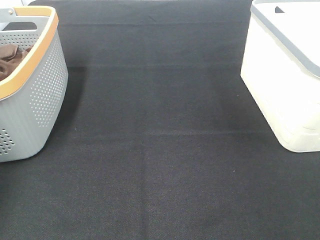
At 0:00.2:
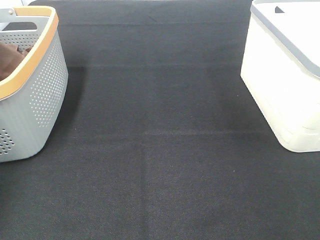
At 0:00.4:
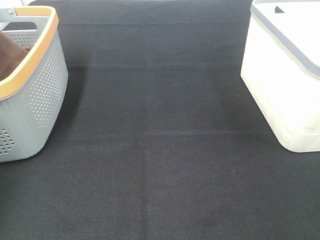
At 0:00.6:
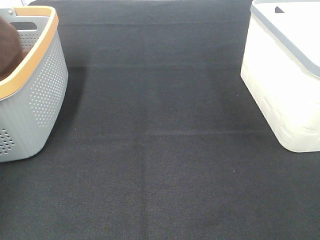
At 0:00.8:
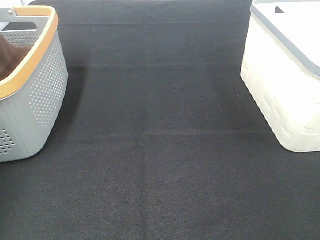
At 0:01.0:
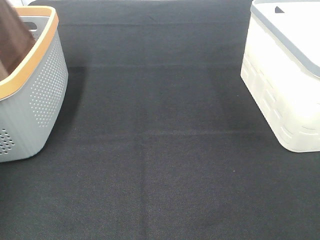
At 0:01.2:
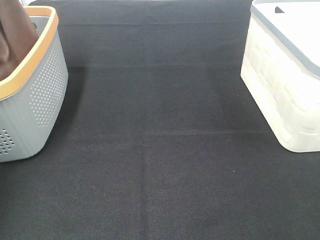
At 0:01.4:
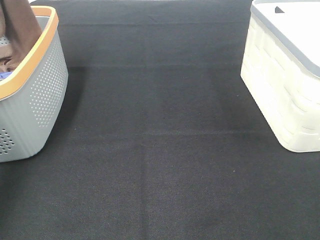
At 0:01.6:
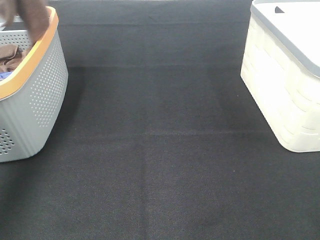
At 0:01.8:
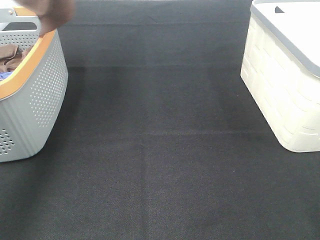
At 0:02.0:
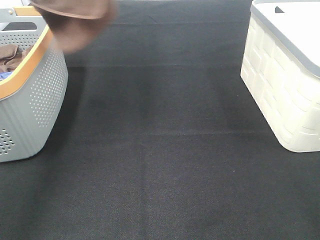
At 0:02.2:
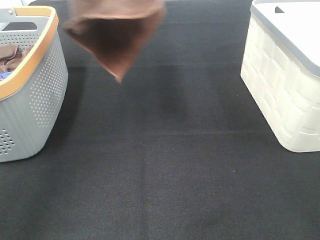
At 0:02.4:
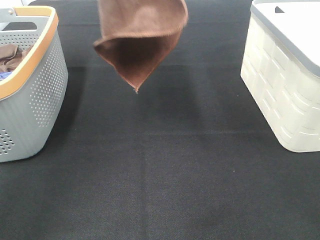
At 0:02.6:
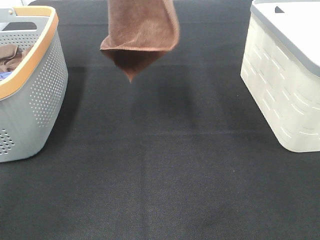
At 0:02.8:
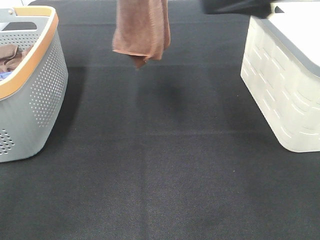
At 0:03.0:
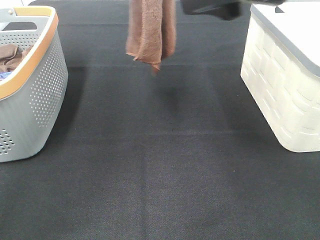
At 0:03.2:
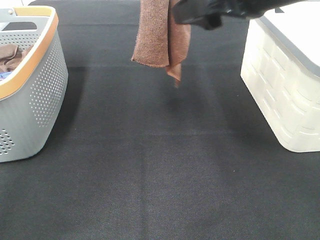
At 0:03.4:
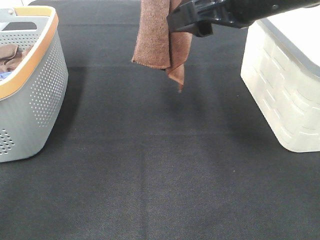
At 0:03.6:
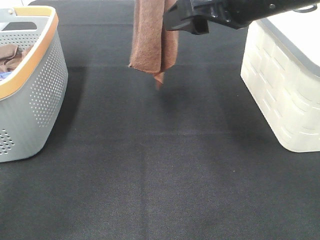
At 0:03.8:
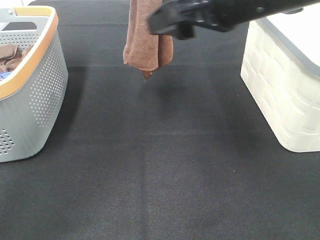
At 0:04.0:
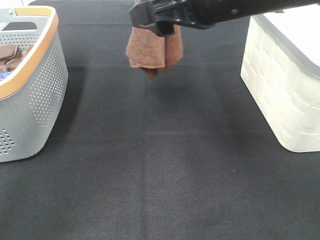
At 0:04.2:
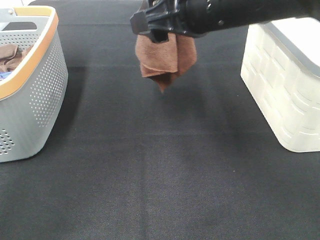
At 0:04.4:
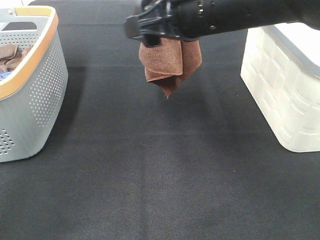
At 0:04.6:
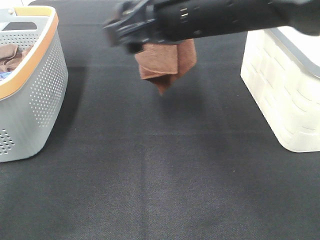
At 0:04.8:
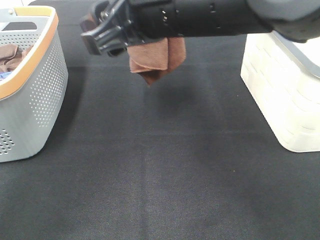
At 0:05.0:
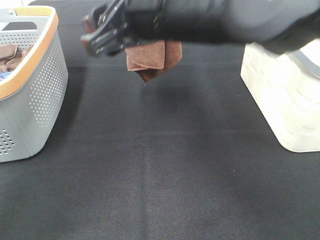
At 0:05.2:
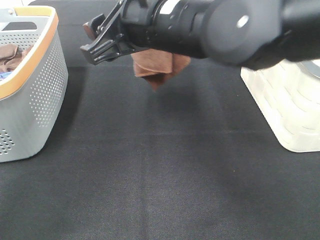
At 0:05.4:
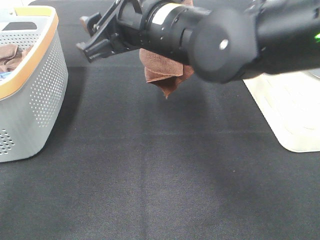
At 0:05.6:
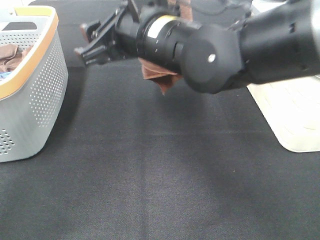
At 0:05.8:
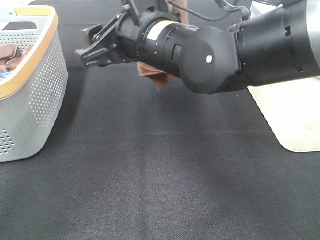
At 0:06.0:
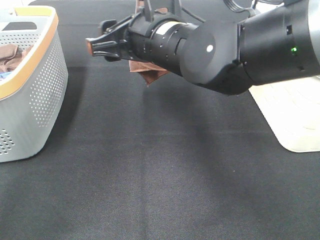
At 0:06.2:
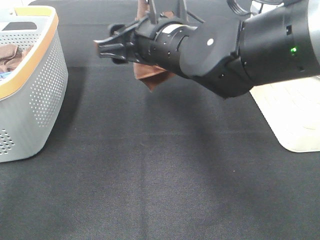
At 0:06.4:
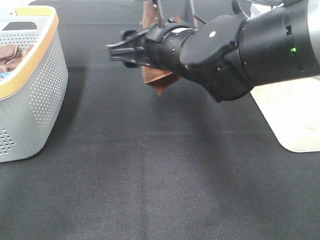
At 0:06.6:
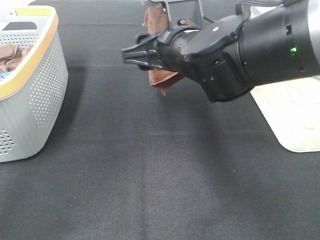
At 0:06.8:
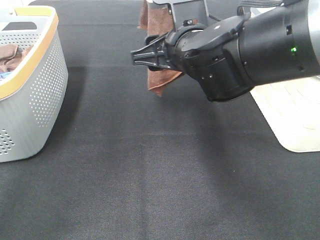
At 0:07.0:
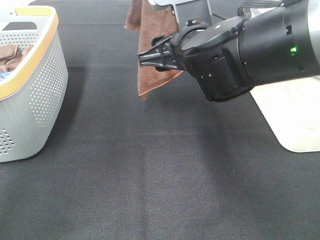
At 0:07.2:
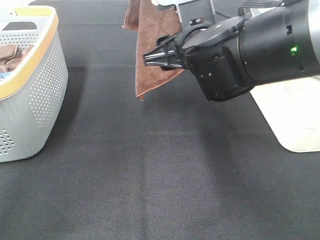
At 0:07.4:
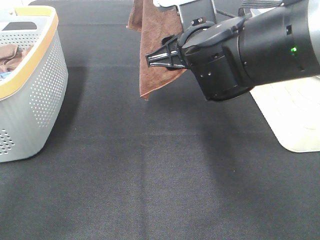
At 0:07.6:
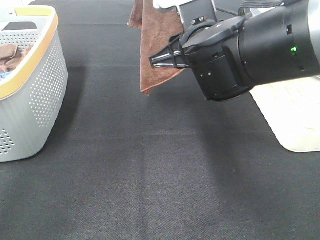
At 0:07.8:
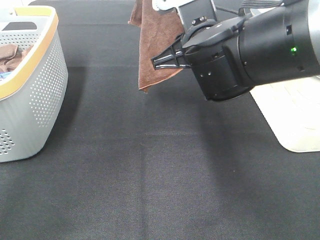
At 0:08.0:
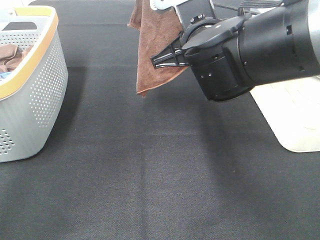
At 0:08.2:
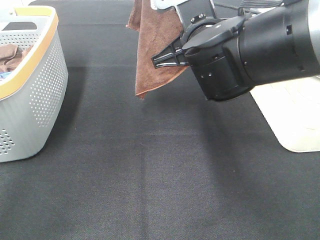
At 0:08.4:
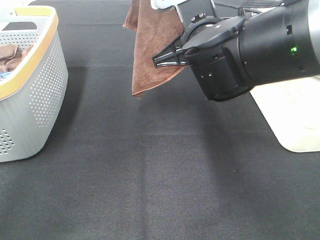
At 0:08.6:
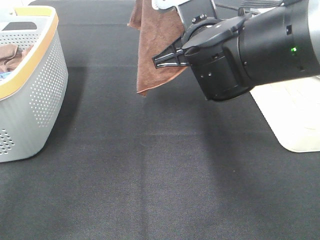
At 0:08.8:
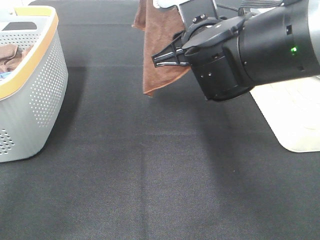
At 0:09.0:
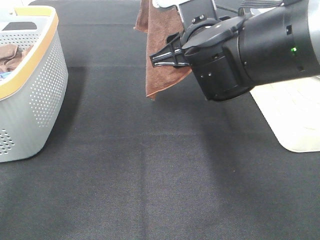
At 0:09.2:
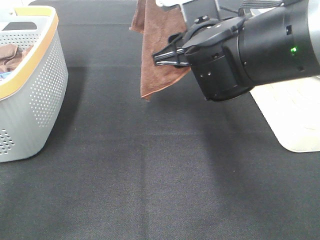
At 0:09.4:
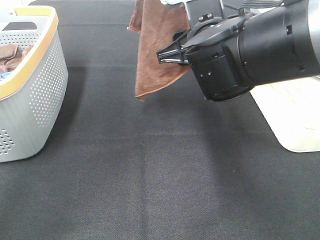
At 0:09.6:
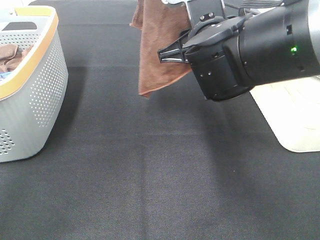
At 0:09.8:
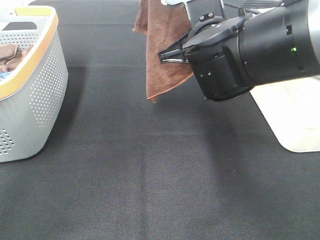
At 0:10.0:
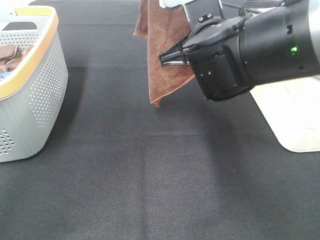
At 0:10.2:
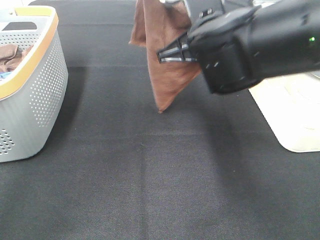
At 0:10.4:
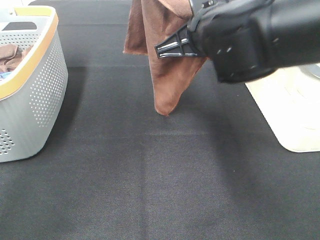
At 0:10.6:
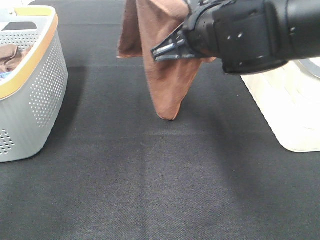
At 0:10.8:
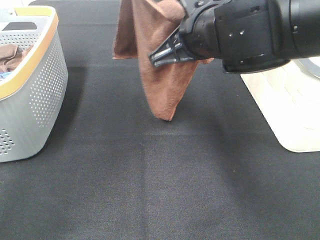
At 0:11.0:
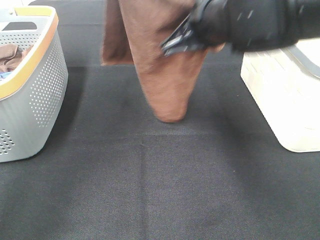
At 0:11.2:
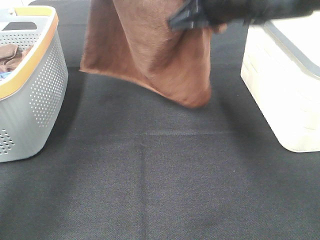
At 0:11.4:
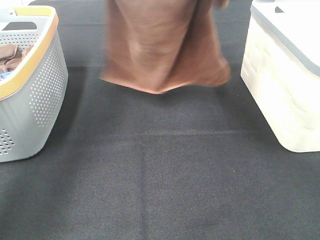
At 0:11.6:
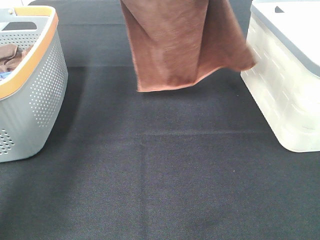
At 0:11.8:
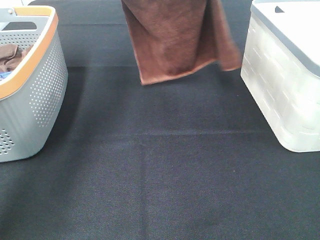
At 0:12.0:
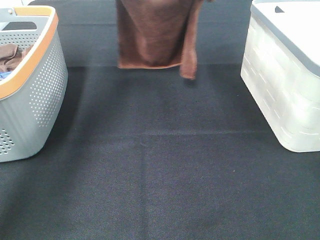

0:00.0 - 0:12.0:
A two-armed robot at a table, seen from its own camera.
Task of the whole recording: Remove the towel and place it.
Step, 0:00.8 - 0:07.4: Right hand: grab a corner of the brown towel and straighten it.
Step, 0:07.6 - 0:11.0: Left hand: spread the brown towel flat on the table.
Step, 0:07.6 - 0:11.0: Right hand: spread the brown towel flat on the table.
0:00.0 - 0:01.6: The left gripper goes roughly 30 cm upward and to the right.
0:01.6 - 0:03.0: The right gripper is displaced forward and to the left by about 25 cm. Meanwhile the left gripper travels to the right by about 20 cm.
0:03.0 - 0:04.4: The right gripper is displaced to the left and downward by about 10 cm.
0:04.4 - 0:06.0: The right gripper moves downward, roughly 5 cm.
0:06.0 - 0:07.6: The right gripper shifts roughly 5 cm to the right.
0:07.6 - 0:09.0: The right gripper closes, then opens again.
0:09.0 - 0:10.4: The right gripper closes its fingers.
0:10.4 - 0:12.0: The right gripper is displaced forward by approximately 20 cm; the left gripper goes approximately 20 cm downward, forward and to the left.

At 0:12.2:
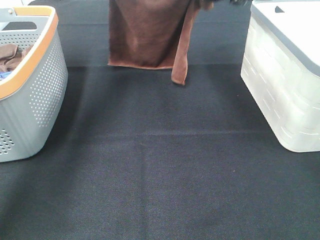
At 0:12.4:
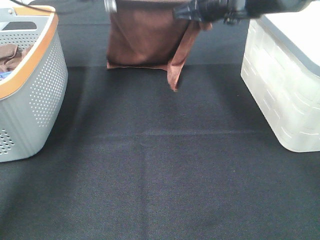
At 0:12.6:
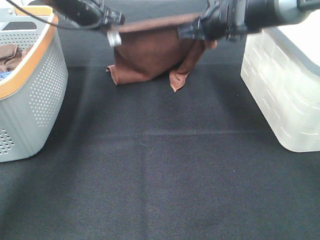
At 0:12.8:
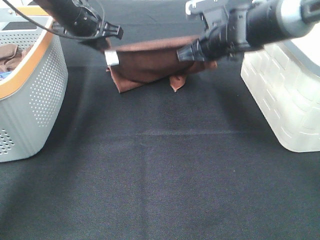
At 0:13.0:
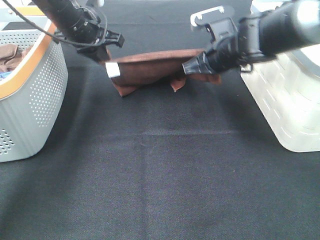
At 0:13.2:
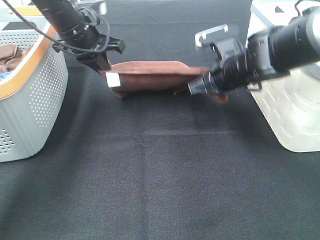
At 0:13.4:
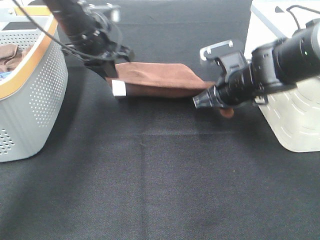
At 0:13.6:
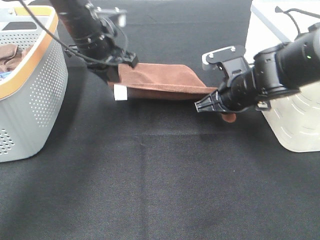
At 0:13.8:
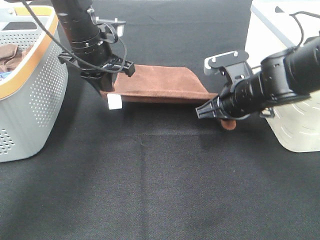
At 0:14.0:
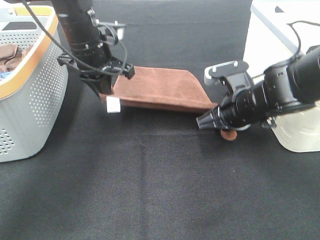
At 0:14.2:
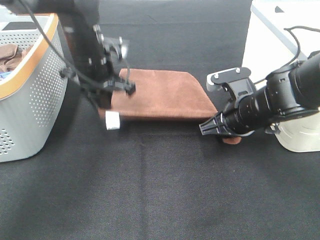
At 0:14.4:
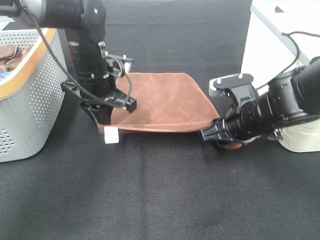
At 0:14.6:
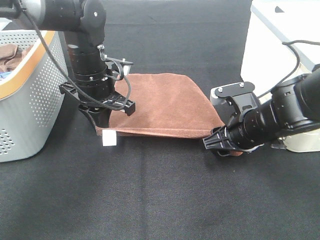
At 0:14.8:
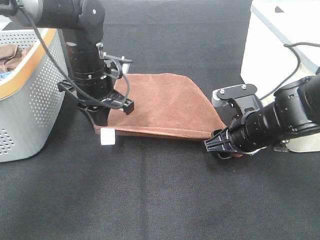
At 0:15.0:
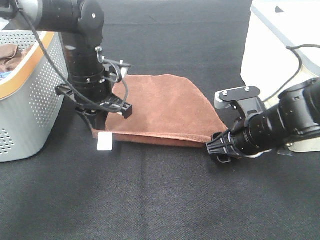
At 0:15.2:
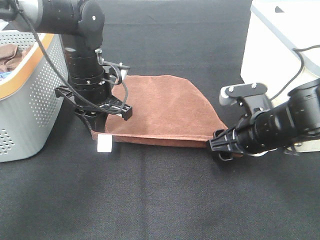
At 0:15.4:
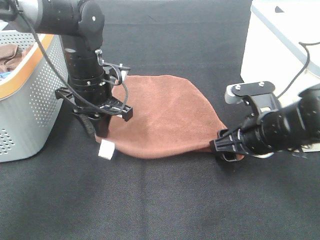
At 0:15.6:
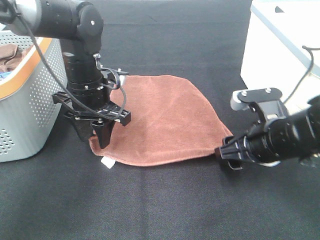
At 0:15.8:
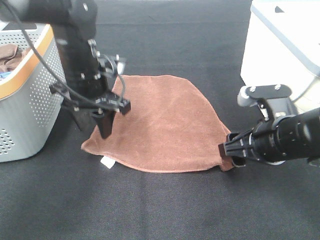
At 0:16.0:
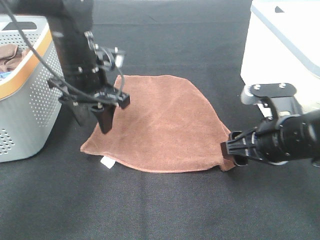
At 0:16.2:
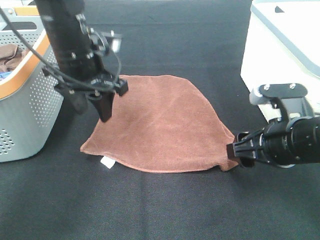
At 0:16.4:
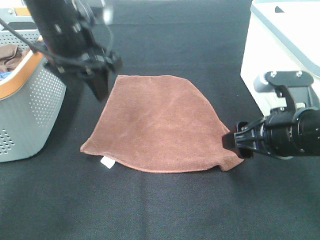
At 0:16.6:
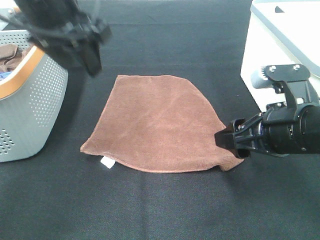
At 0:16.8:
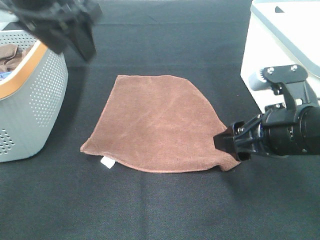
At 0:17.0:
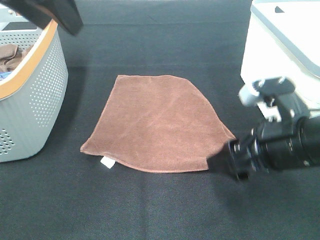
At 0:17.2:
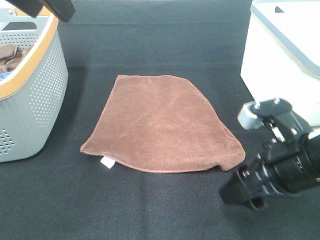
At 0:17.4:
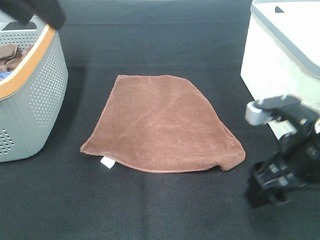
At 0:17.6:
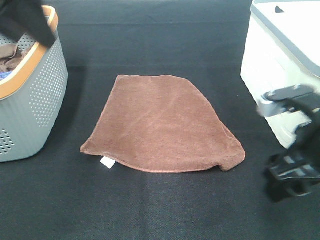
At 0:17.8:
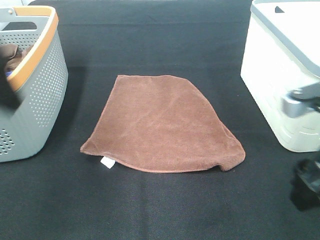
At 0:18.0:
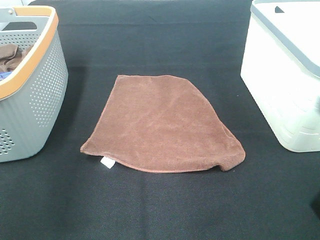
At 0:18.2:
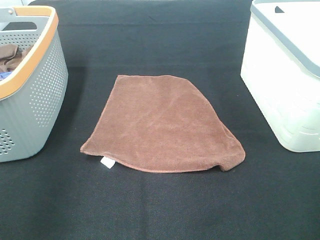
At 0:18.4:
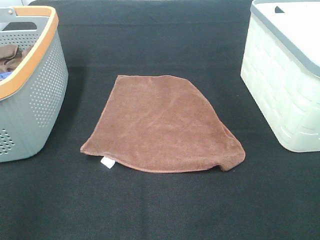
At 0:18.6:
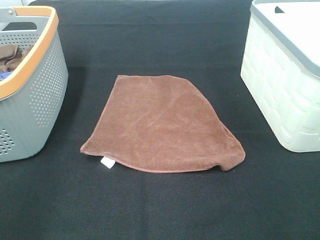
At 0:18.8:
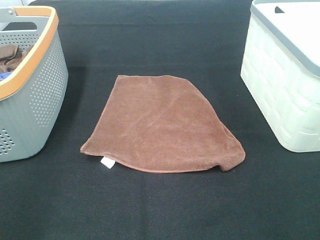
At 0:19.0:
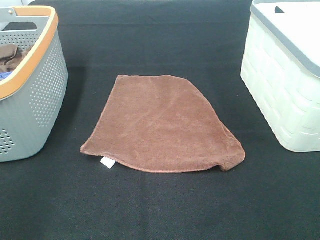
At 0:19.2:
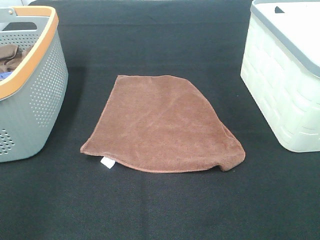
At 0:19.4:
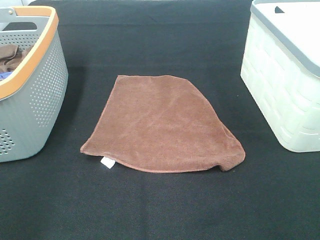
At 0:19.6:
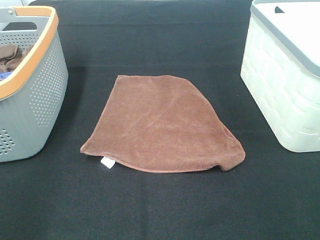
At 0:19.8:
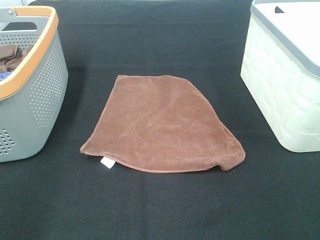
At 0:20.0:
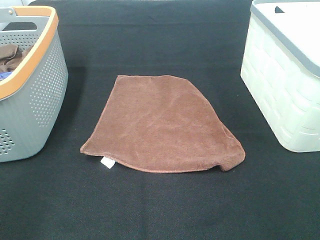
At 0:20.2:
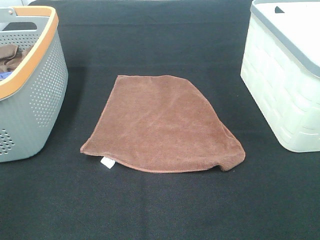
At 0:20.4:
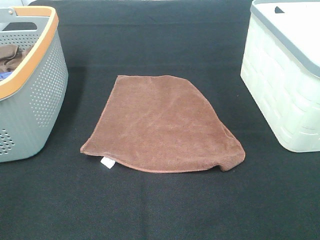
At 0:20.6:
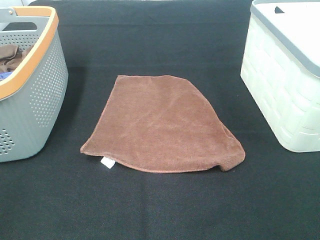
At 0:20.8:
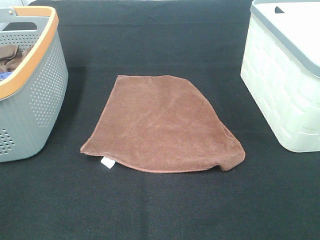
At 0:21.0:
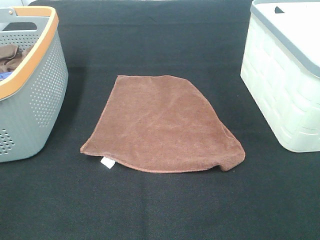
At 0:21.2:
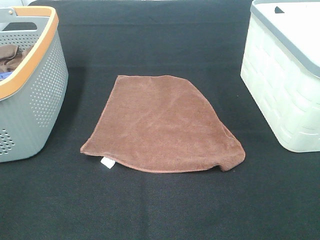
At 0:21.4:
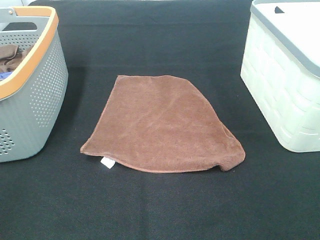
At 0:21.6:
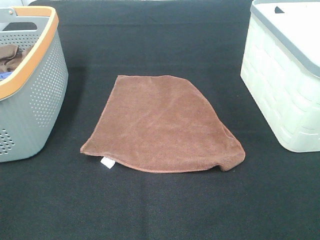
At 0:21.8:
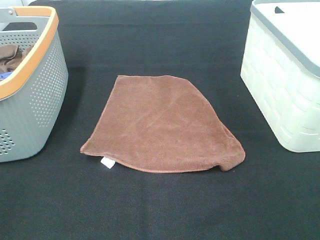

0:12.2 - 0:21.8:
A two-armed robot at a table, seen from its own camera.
Task of the whole recording: Remove the towel and place it.
0:12.2 - 0:13.8: The left gripper travels backward and downward by roughly 15 cm; the right gripper heads backward and downward, covering some 20 cm.
0:13.8 - 0:15.4: Both grippers travel together backward, approximately 5 cm. The left gripper opens up, while the right gripper opens its fingers.
0:15.4 - 0:17.0: The right gripper heads backward, covering about 5 cm. The left gripper is displaced upward by about 25 cm.
0:17.0 - 0:18.6: The right gripper travels backward, upward and to the right by roughly 20 cm, while the left gripper goes roughly 30 cm backward, to the left and downward.
